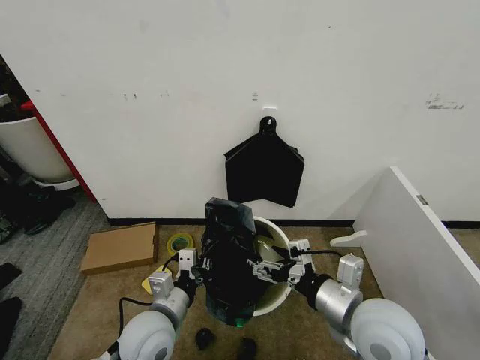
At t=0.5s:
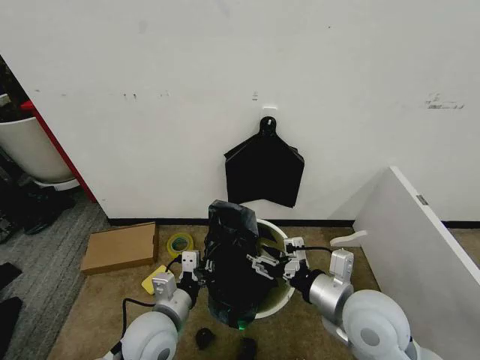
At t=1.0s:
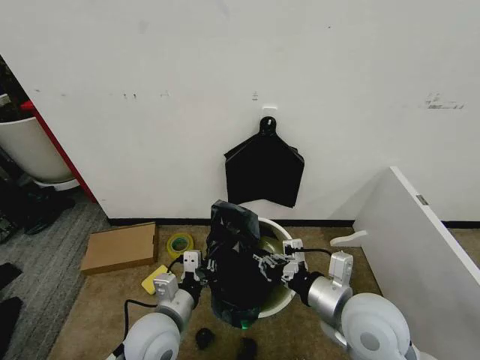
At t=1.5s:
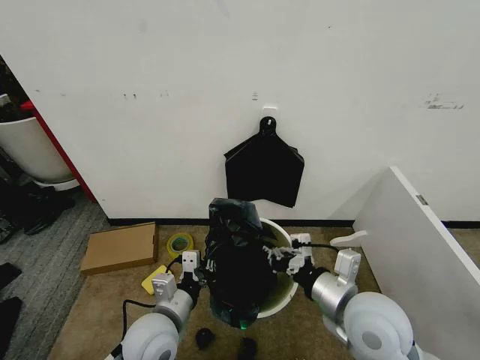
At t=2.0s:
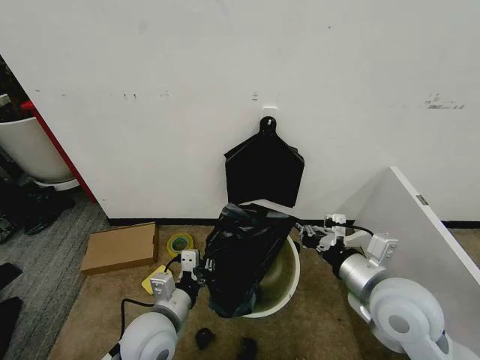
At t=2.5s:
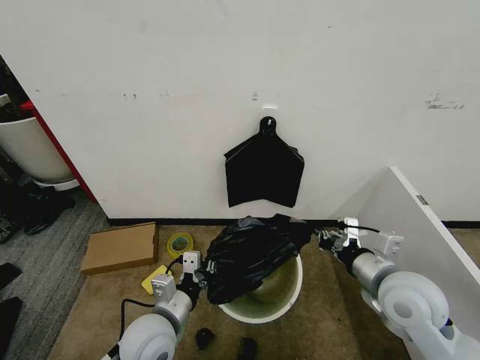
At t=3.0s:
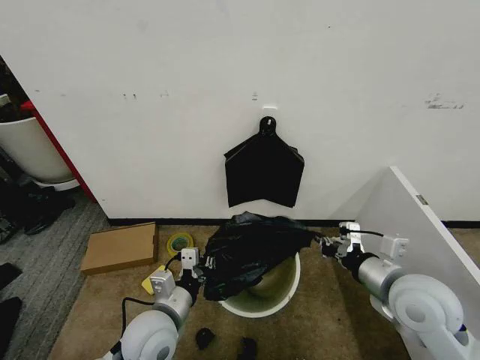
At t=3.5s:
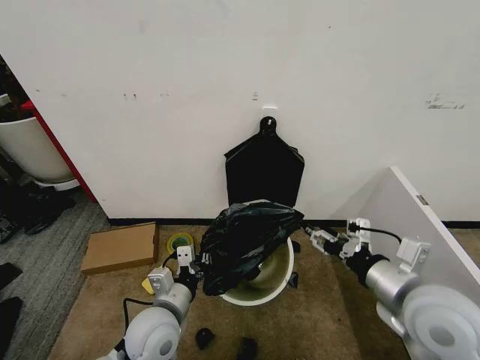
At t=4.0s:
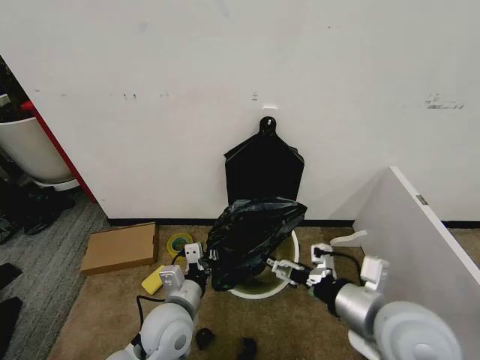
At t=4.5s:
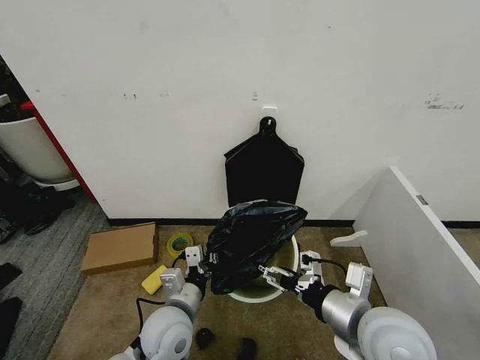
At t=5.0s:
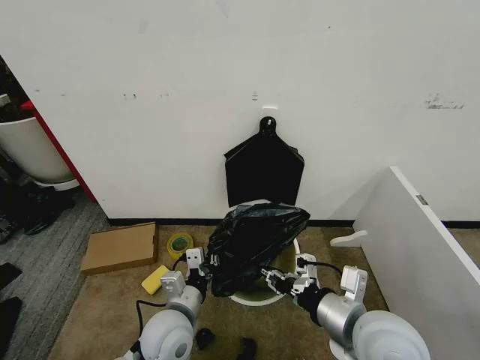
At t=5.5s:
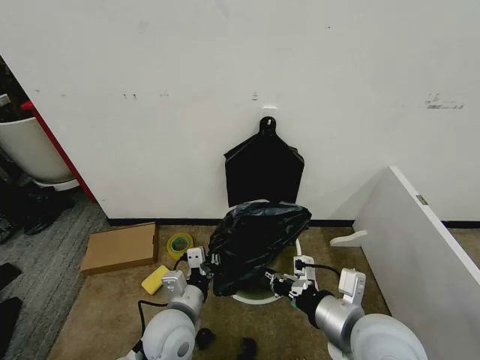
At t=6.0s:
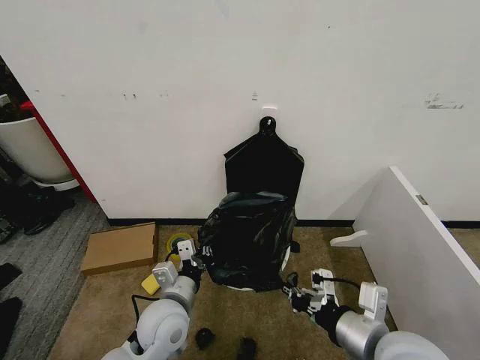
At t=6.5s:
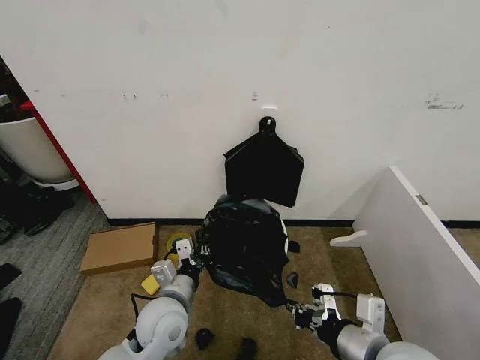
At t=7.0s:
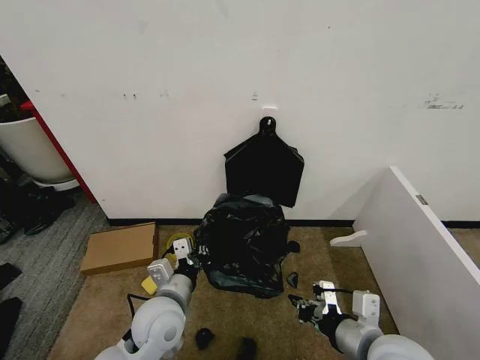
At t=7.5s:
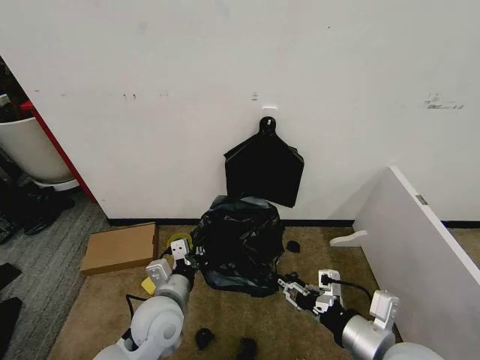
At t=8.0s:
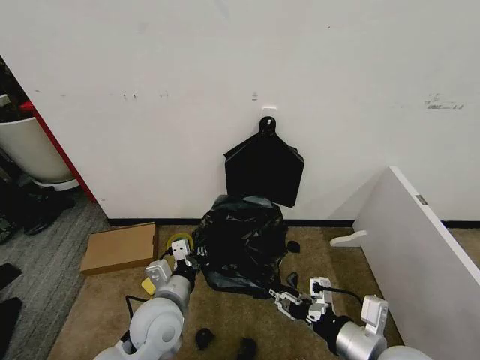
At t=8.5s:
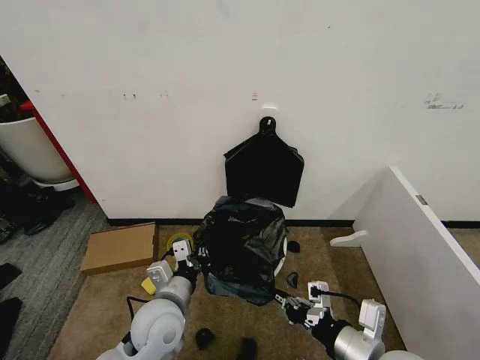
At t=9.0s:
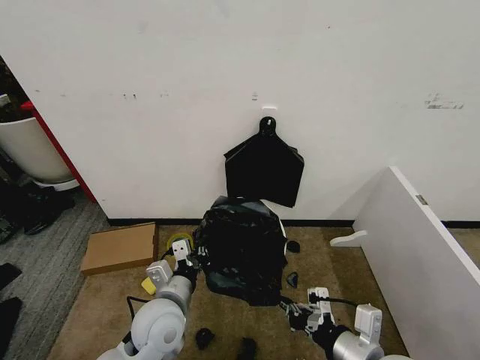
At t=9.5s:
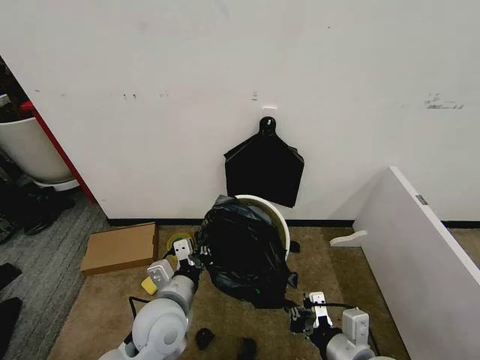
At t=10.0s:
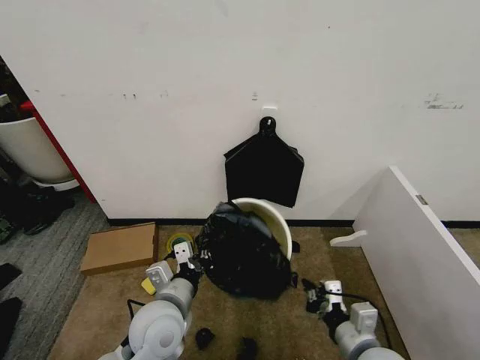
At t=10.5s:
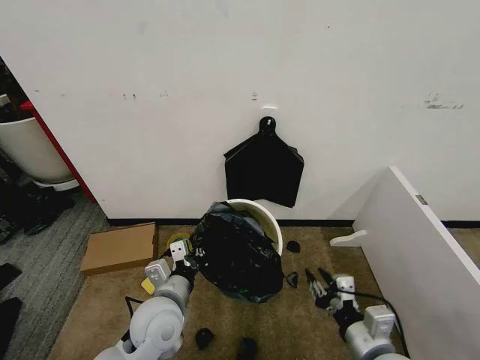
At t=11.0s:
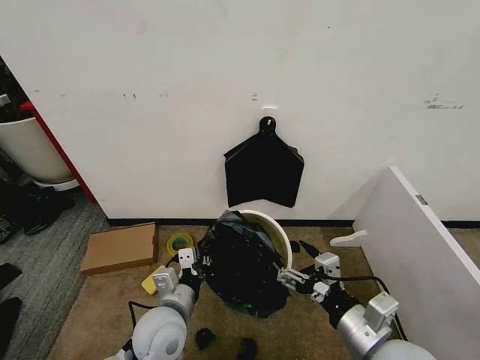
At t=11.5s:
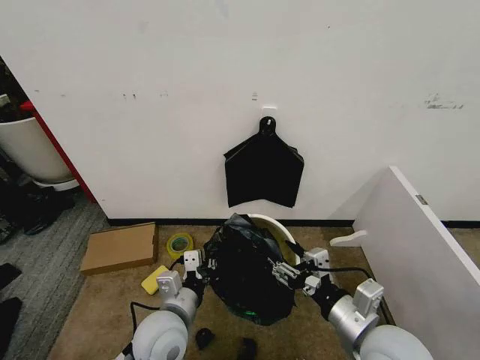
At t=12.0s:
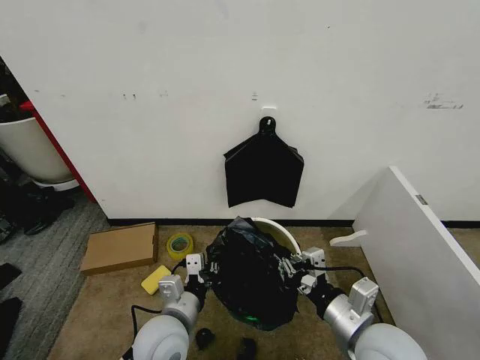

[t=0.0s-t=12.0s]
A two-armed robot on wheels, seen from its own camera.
Task of the whole recording: Place the garbage bag over the trash bin.
t=0.0s to t=2.0s: The right gripper closes.
t=2.0s to t=4.0s: The right gripper opens up.
t=4.0s to t=6.0s: The right gripper closes.
t=6.0s to t=8.0s: The right gripper opens up.
t=8.0s to t=10.0s: The right gripper travels downward by some 10 cm, and closes.
t=10.0s to t=12.0s: The right gripper moves upward, about 5 cm, and opens and closes again.

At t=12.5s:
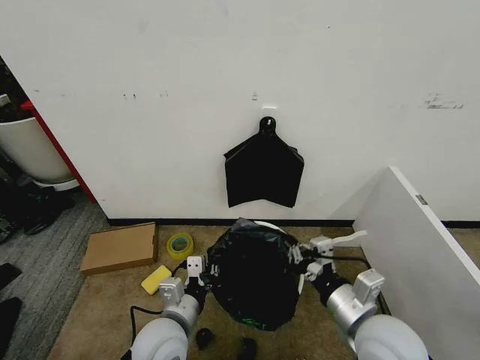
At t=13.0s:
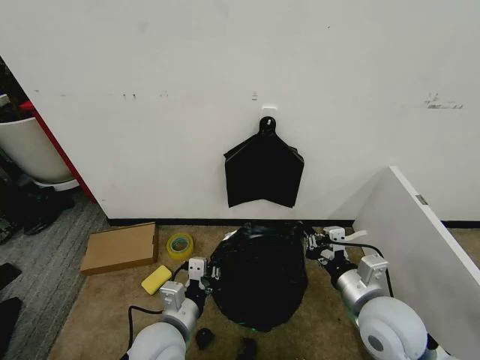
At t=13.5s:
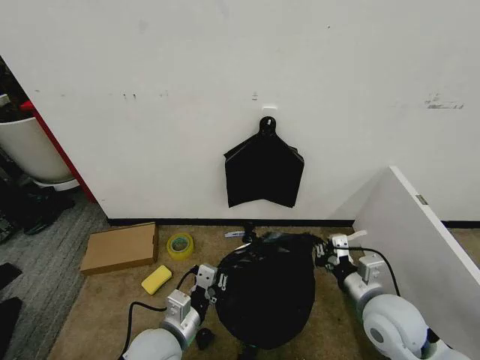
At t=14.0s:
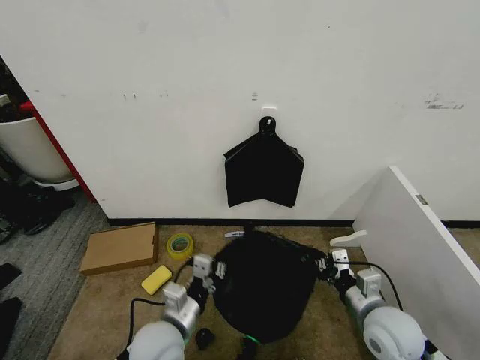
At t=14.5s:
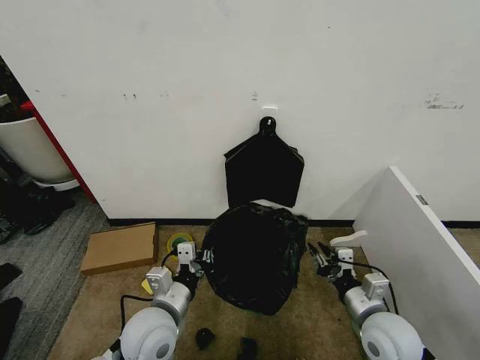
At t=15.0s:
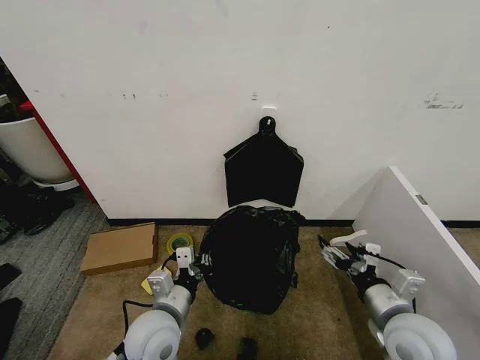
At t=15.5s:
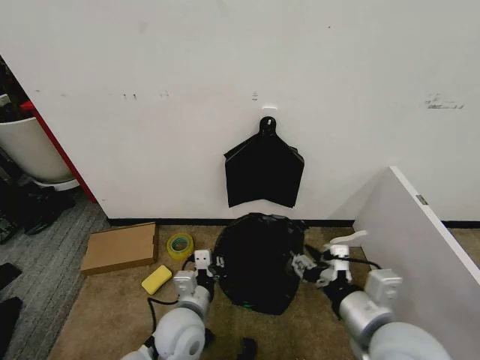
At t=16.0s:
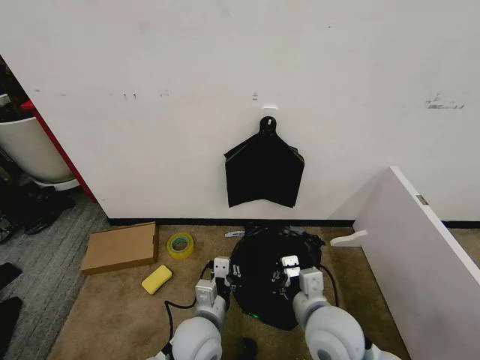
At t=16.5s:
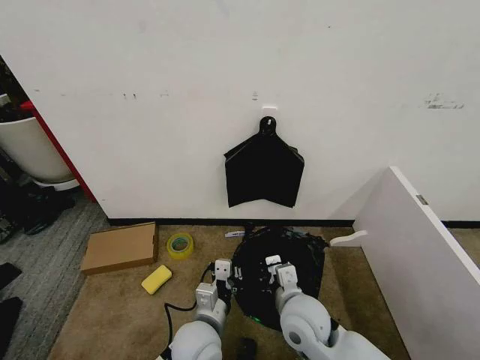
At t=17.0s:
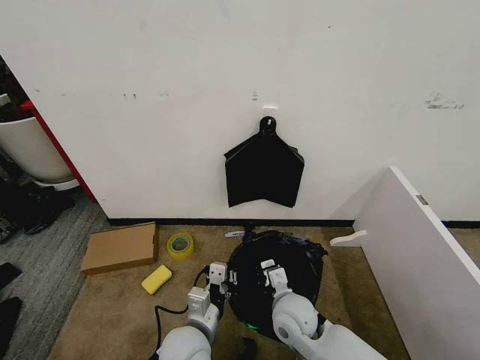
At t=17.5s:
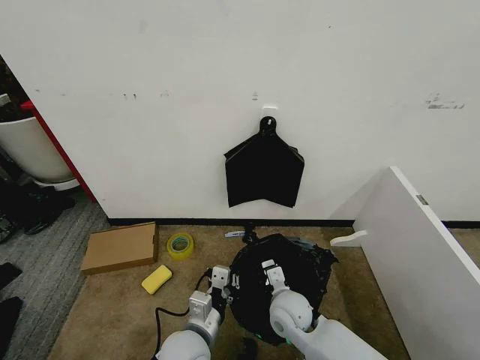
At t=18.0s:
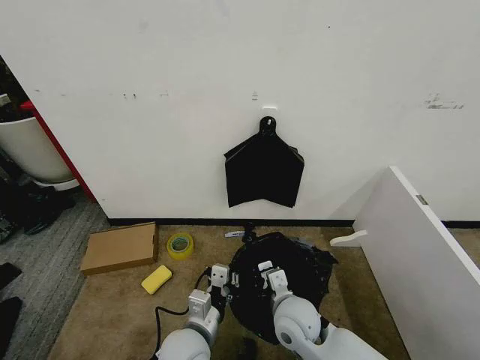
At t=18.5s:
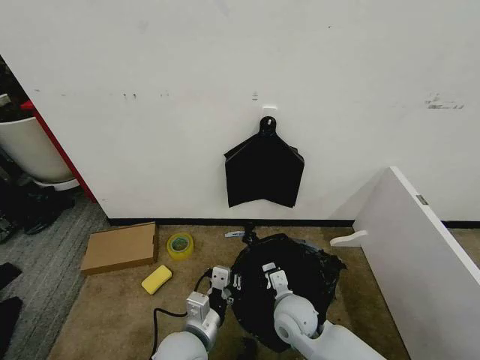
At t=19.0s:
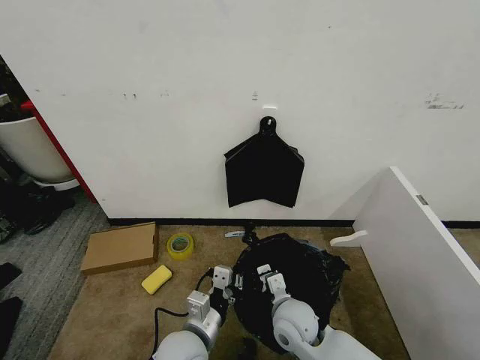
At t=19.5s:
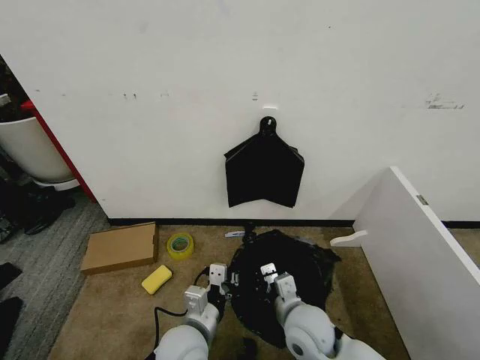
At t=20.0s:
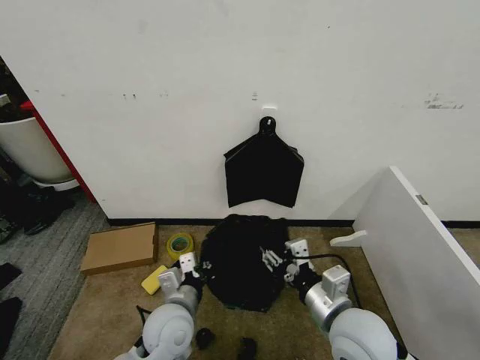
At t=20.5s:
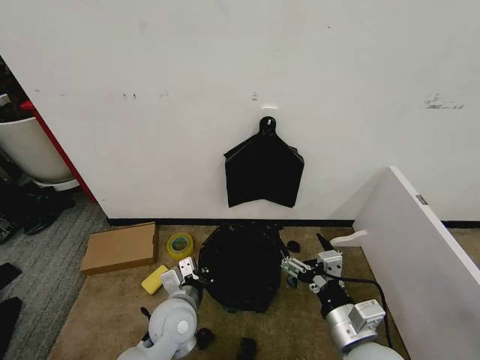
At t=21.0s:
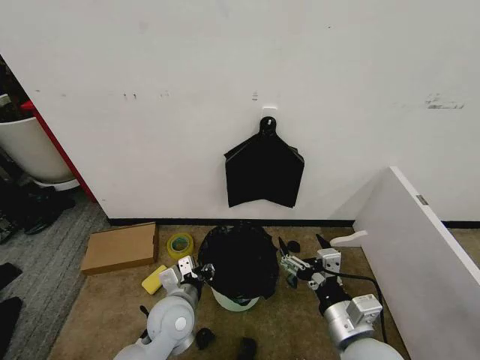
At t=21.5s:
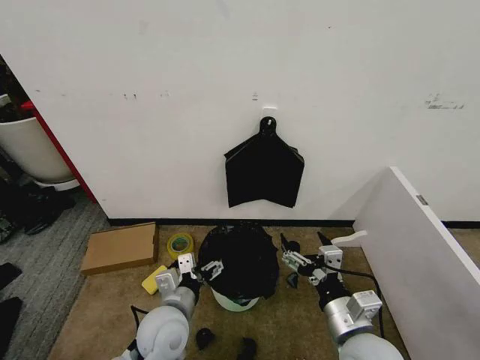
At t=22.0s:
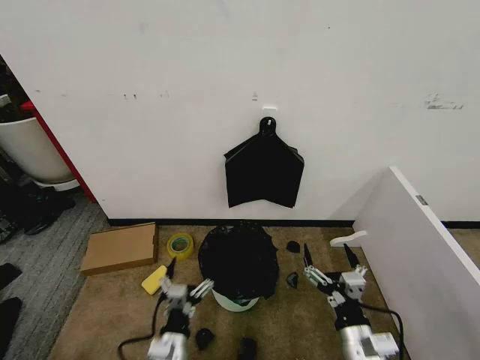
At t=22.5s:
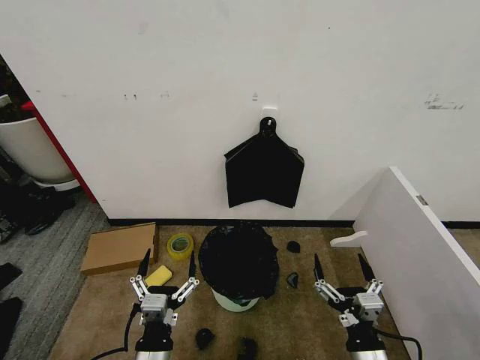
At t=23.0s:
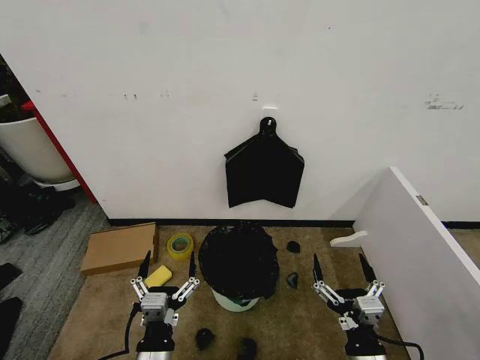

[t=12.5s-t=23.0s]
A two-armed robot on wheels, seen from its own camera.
Task of the whole recording: Place the garbage bag over the trash bin.
t=12.5s to t=14.5s: The right gripper heads downward and to the right, covering roughly 10 cm.
t=14.5s to t=16.5s: The left gripper is displaced to the right and downward by approximately 10 cm. The right gripper travels to the left by roughly 15 cm, and opens, then closes once more.
t=16.5s to t=19.0s: The right gripper goes some 5 cm downward.
t=19.0s to t=21.0s: The right gripper moves upward, backward and to the right, roughly 15 cm, and opens its fingers. The left gripper shifts roughly 5 cm forward, and opens its fingers.
t=21.0s to t=23.0s: The right gripper shifts roughly 10 cm downward and backward; the left gripper shifts roughly 15 cm backward, and opens its fingers.

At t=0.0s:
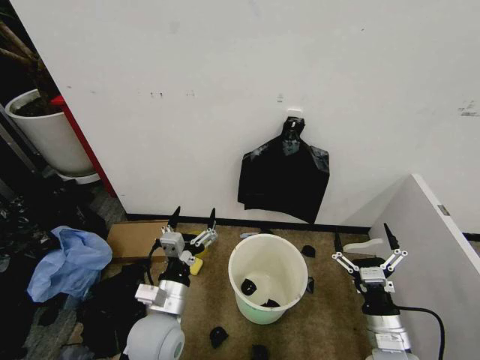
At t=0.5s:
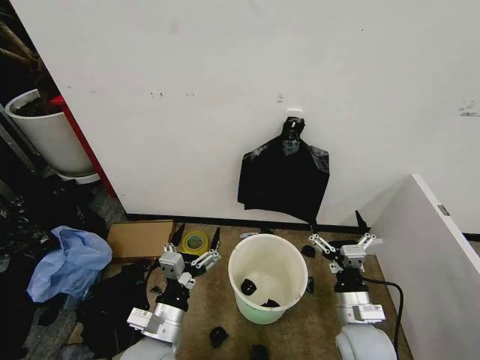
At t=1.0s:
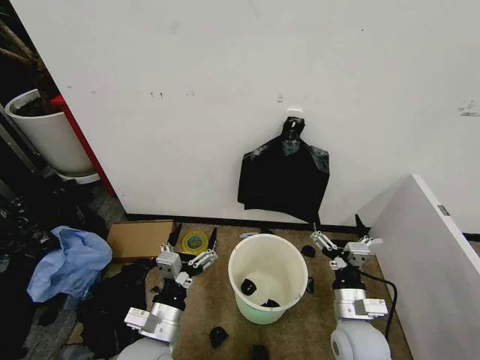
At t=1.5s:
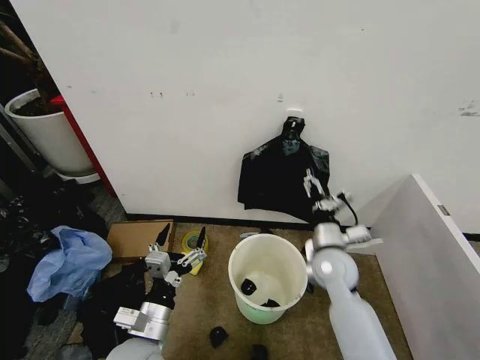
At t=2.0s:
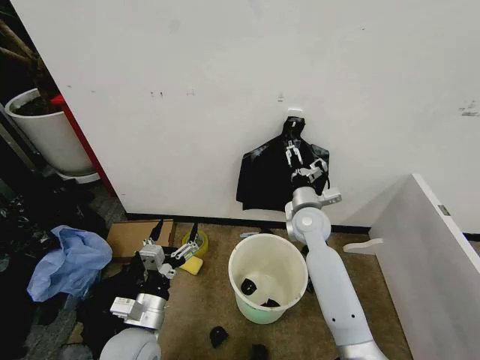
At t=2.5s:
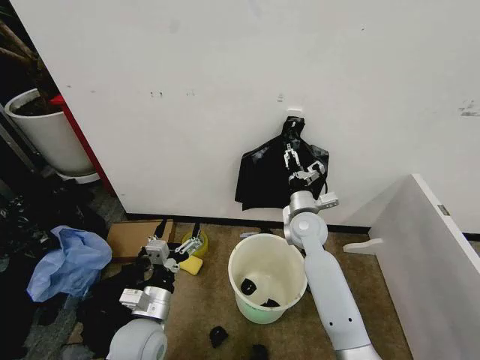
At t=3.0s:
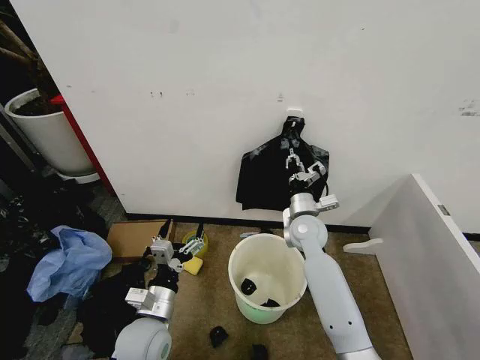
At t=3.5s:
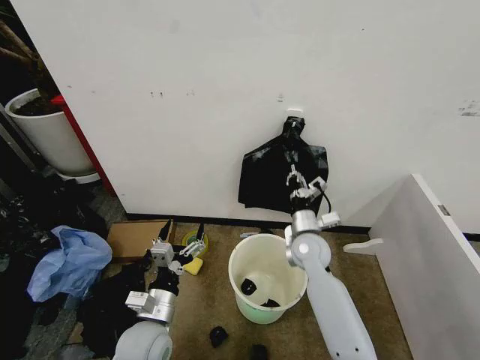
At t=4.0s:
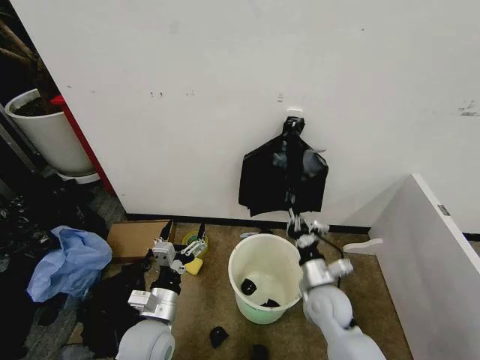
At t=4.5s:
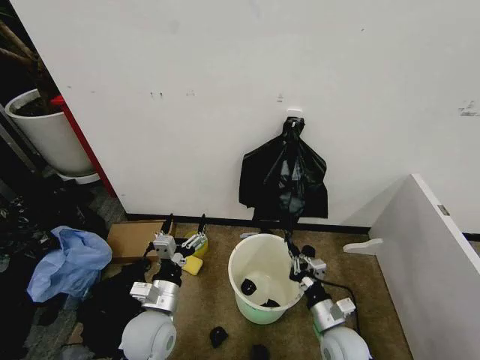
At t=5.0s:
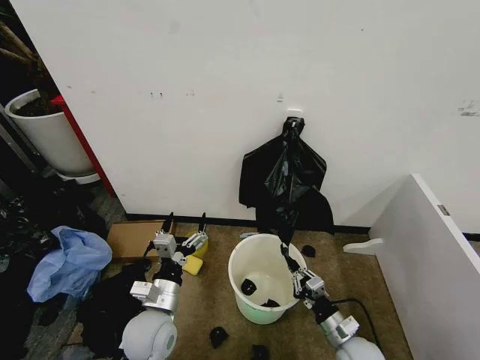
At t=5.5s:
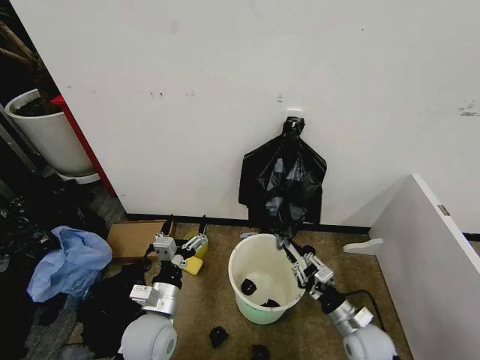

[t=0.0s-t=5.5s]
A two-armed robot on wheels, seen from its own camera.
Task of the whole recording: Place the garbage bag over the trash bin.
t=2.0s to t=3.5s: The right gripper shifts by roughly 5 cm, and closes up.
t=3.5s to t=5.5s: The right gripper is displaced backward, downward and to the right by roughly 25 cm.
